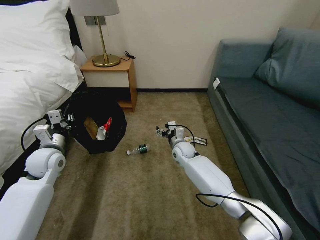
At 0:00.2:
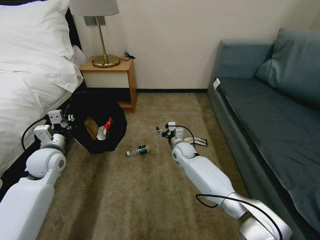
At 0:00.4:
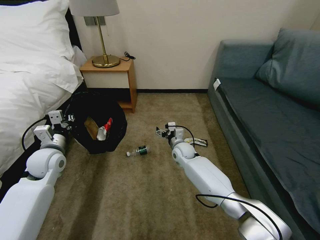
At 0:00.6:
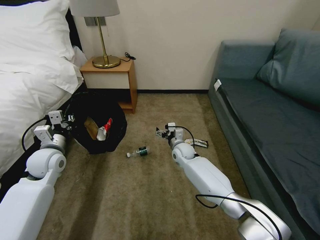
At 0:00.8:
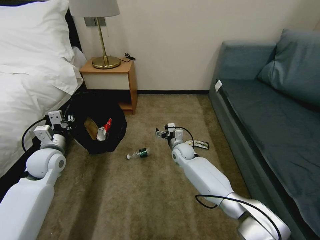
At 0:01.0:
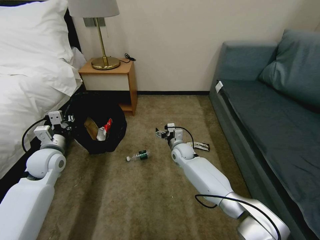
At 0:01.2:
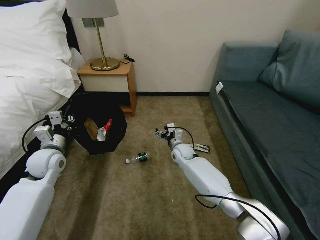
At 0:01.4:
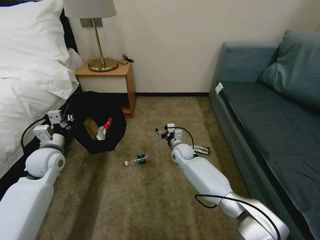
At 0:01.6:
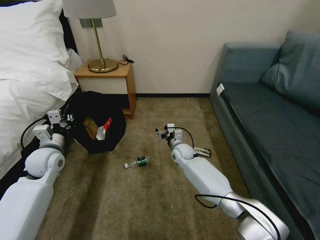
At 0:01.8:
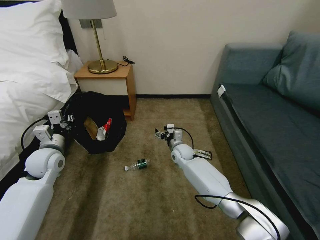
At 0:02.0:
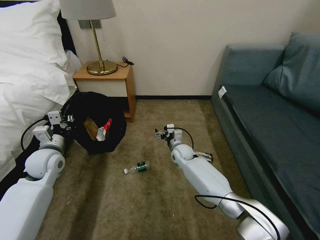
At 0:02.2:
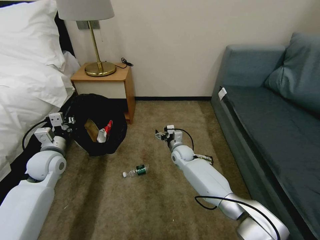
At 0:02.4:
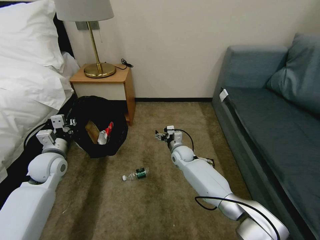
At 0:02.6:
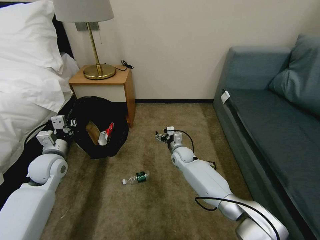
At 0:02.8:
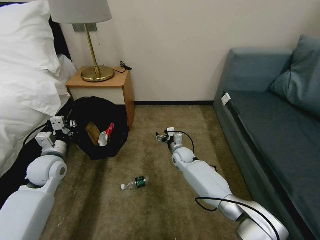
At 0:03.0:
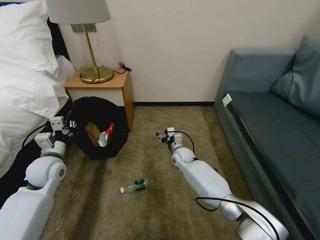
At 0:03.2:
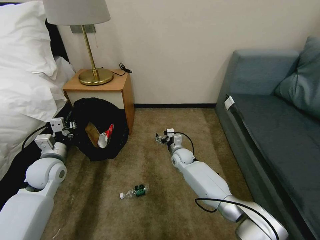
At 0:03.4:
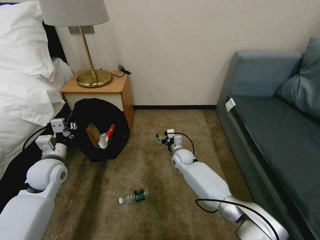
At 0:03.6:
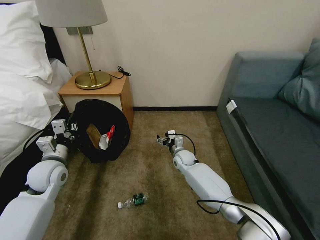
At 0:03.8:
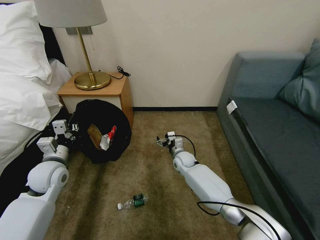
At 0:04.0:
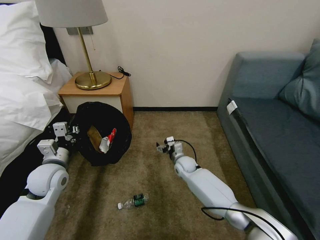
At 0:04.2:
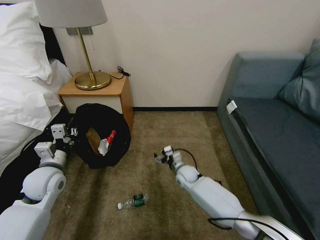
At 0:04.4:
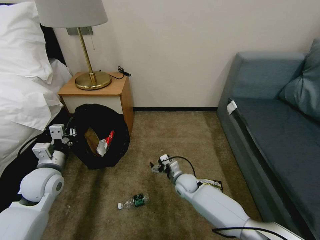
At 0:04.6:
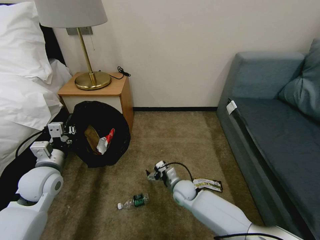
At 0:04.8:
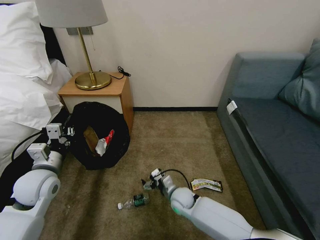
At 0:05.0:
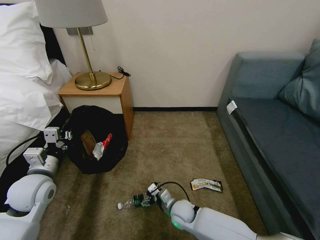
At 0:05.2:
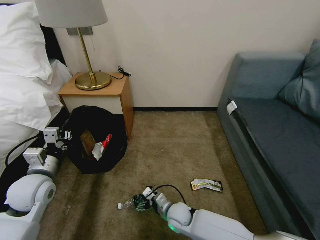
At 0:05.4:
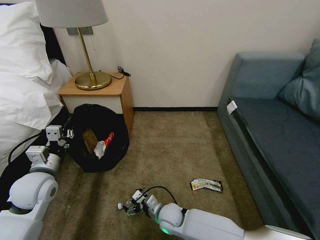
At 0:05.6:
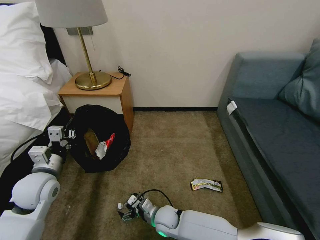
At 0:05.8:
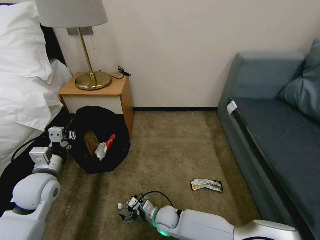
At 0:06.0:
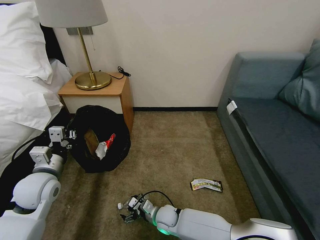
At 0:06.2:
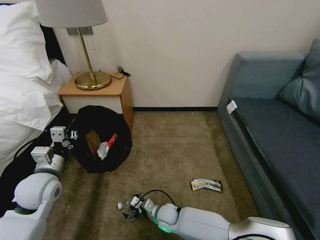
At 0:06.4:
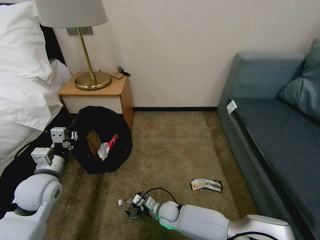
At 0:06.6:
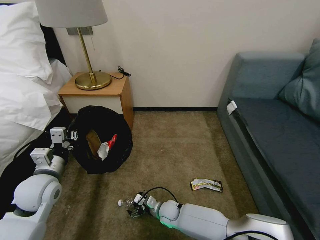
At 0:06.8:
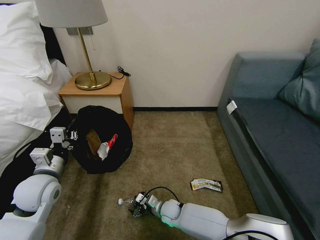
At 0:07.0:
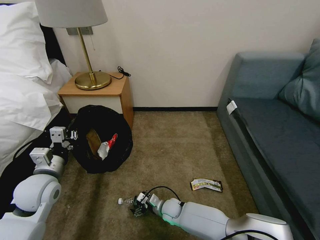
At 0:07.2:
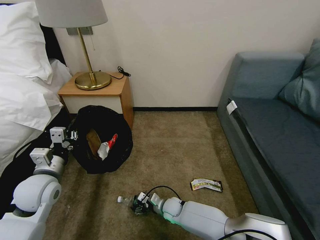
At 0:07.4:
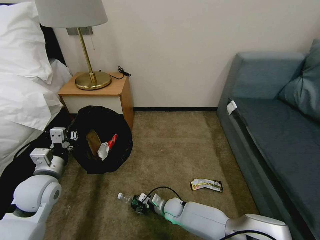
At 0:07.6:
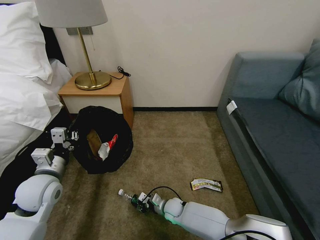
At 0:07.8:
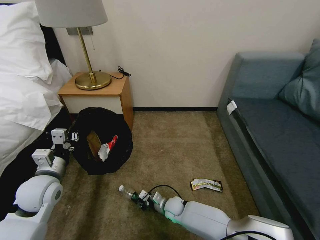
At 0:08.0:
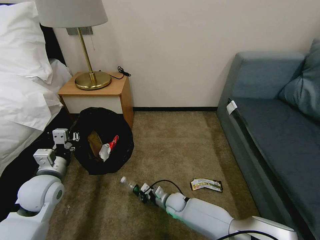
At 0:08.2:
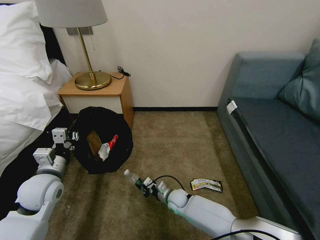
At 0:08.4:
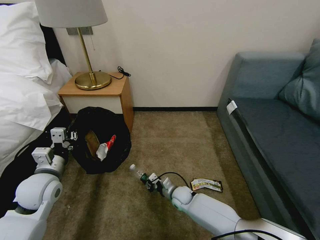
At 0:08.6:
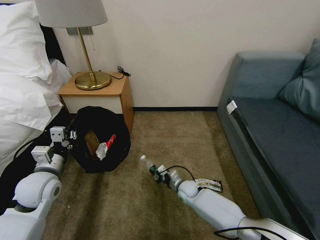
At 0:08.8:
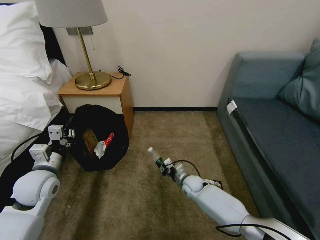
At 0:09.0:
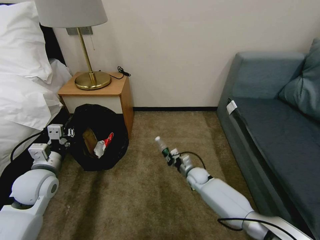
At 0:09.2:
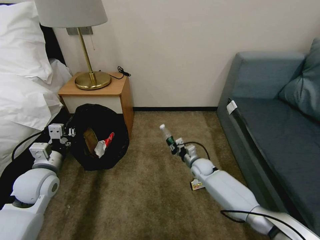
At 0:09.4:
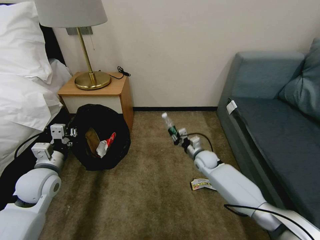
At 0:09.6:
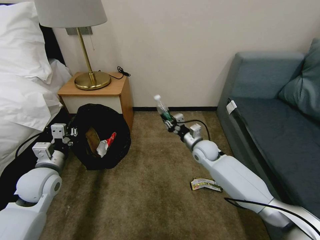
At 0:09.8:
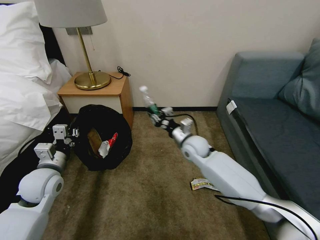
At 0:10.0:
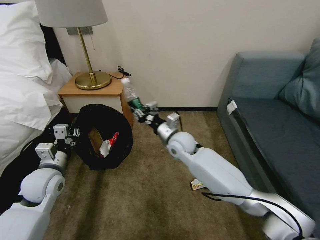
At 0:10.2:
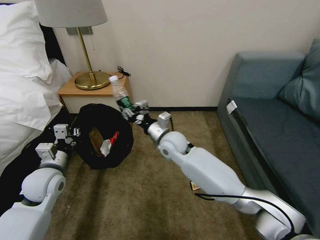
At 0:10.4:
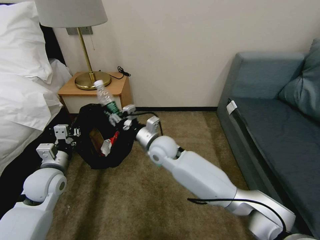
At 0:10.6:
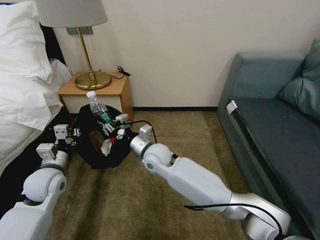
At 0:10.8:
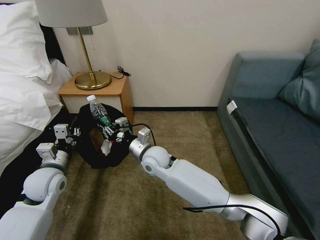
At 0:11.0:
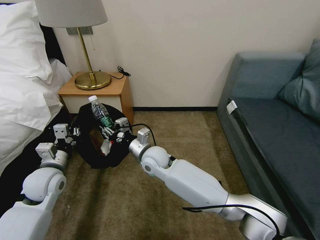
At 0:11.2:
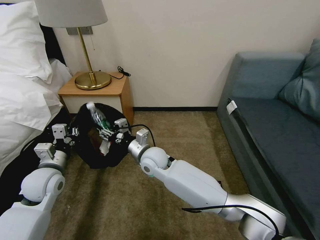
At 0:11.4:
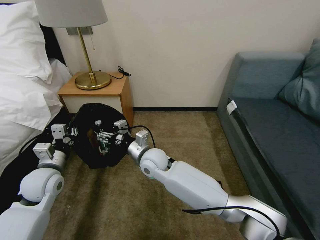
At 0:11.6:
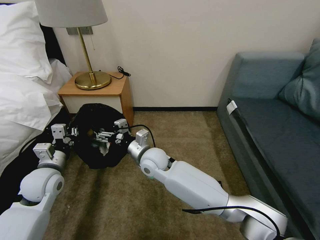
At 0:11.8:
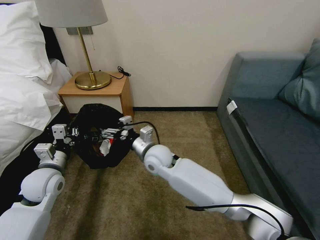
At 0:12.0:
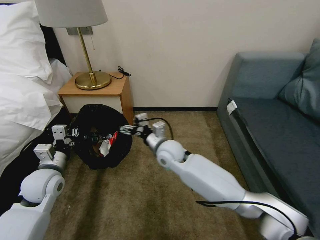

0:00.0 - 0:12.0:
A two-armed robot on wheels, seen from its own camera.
Task of the whole recording: Pick up the trash bin, then pick up the garbage on the floor and place it into the trash bin.
0:00.0 - 0:01.6: The two grippers keep their place.
0:03.0 - 0:04.4: The right gripper goes approximately 10 cm backward and downward.
0:04.4 - 0:06.0: The right gripper moves backward, to the left and downward, approximately 15 cm.
0:06.0 - 0:07.6: The right gripper shifts by approximately 5 cm, and closes up.
0:07.6 - 0:09.0: The right gripper heads forward, to the right and upward, covering roughly 20 cm.
0:09.0 - 0:10.4: The right gripper goes about 30 cm upward and to the left.
0:10.4 - 0:12.0: The right gripper opens up.

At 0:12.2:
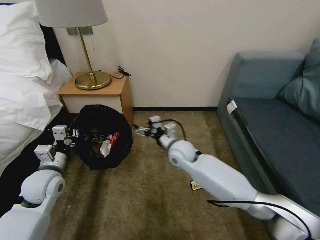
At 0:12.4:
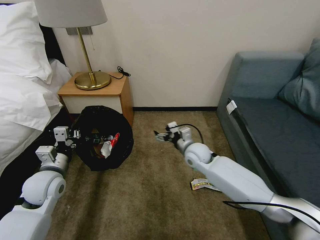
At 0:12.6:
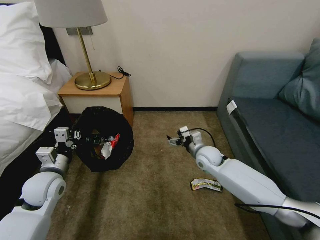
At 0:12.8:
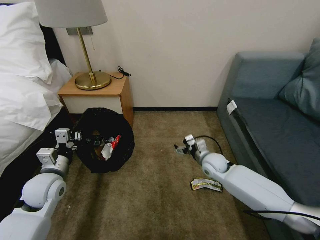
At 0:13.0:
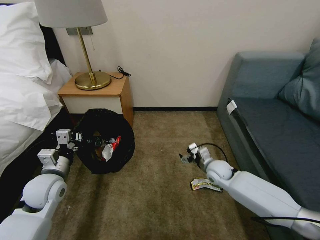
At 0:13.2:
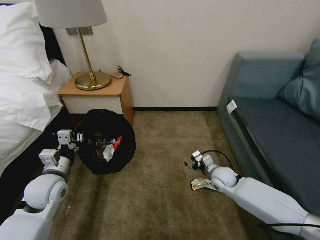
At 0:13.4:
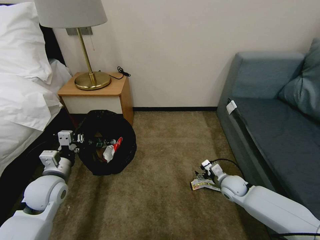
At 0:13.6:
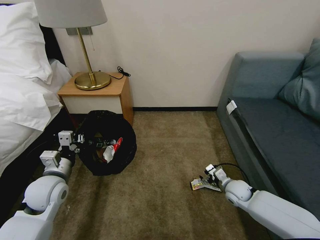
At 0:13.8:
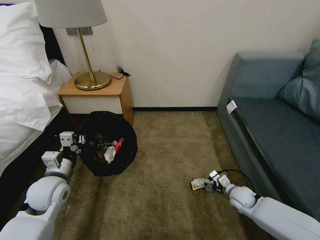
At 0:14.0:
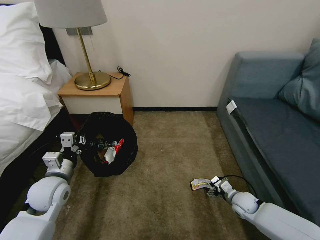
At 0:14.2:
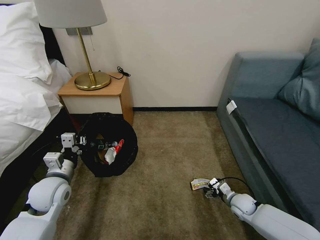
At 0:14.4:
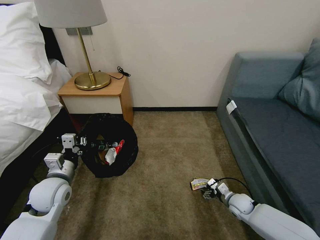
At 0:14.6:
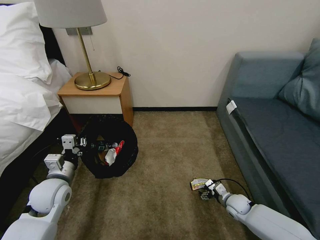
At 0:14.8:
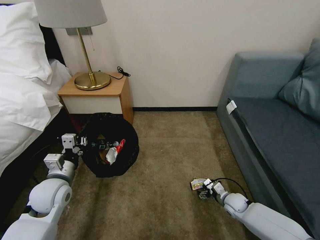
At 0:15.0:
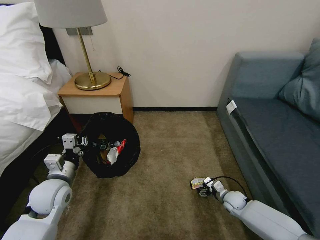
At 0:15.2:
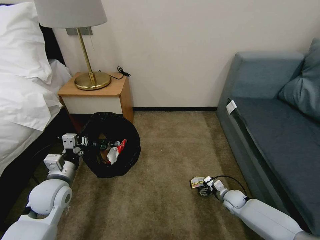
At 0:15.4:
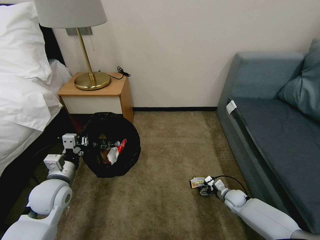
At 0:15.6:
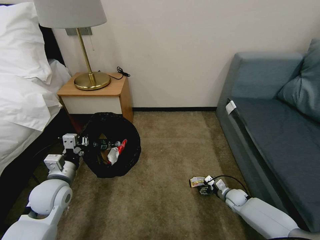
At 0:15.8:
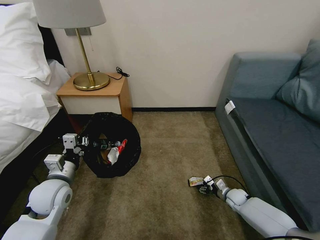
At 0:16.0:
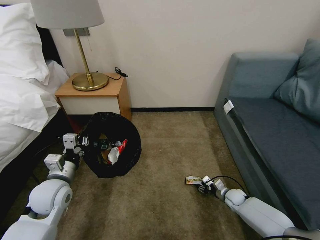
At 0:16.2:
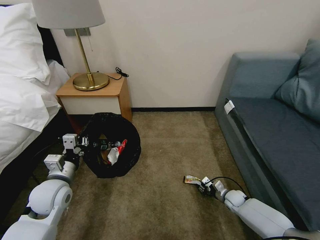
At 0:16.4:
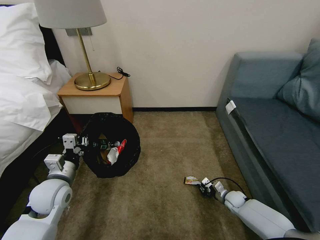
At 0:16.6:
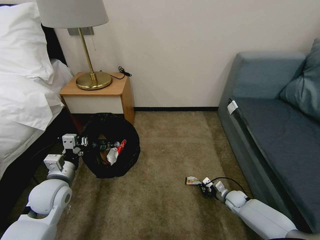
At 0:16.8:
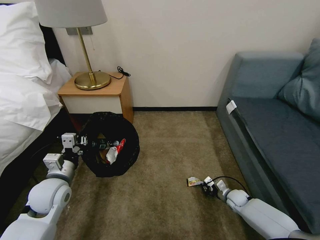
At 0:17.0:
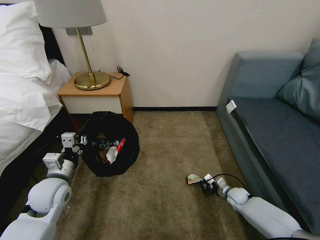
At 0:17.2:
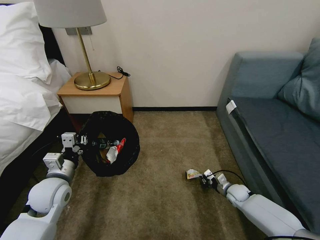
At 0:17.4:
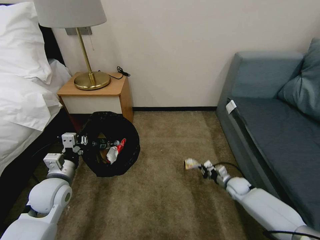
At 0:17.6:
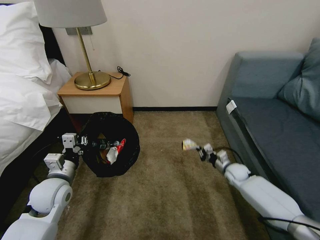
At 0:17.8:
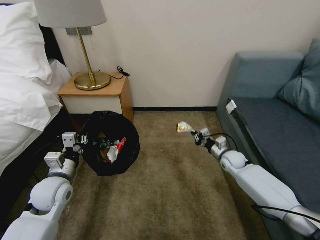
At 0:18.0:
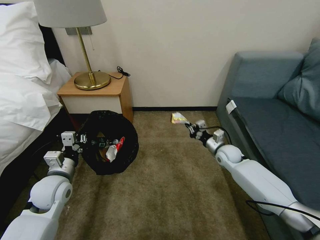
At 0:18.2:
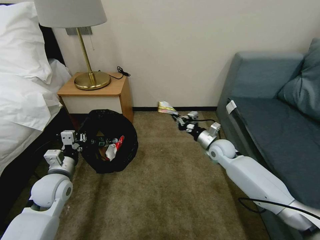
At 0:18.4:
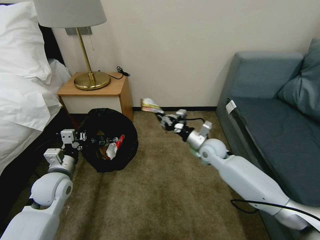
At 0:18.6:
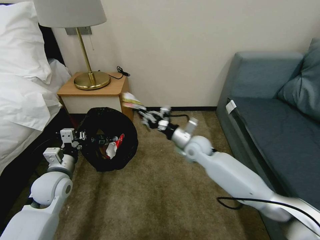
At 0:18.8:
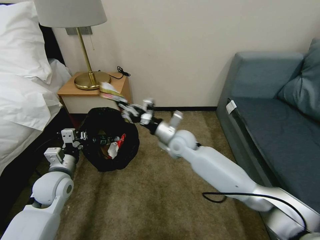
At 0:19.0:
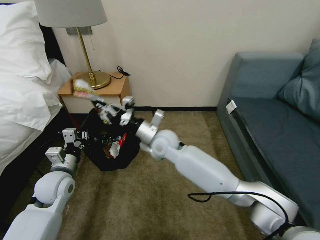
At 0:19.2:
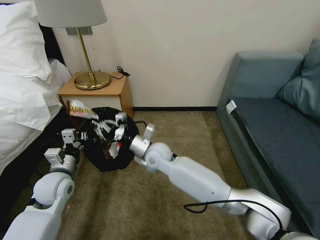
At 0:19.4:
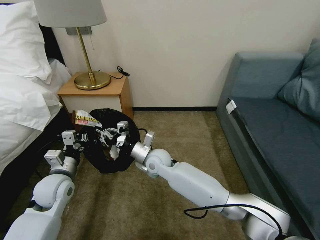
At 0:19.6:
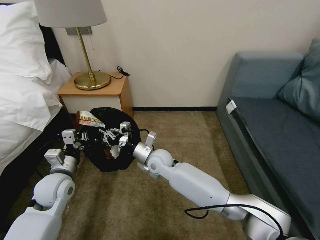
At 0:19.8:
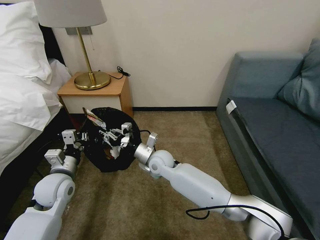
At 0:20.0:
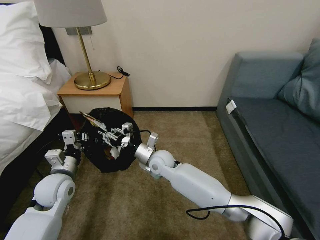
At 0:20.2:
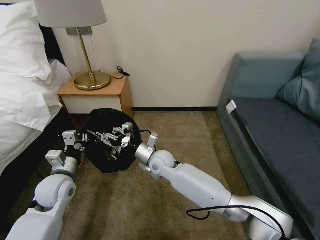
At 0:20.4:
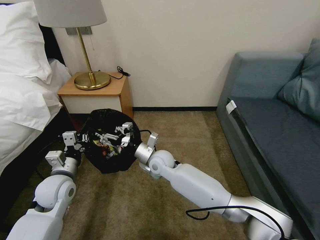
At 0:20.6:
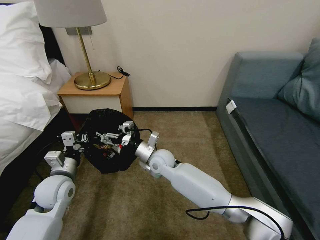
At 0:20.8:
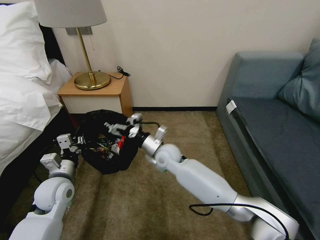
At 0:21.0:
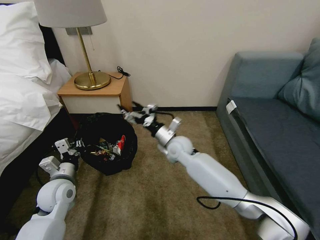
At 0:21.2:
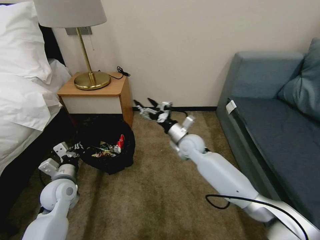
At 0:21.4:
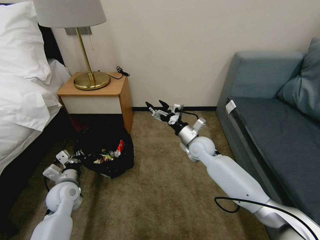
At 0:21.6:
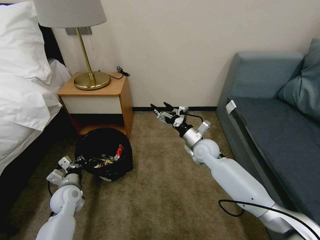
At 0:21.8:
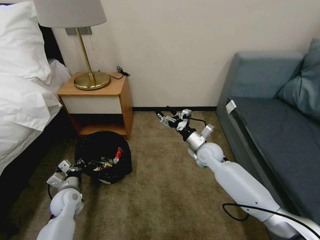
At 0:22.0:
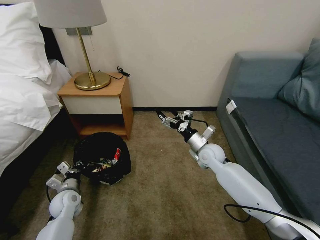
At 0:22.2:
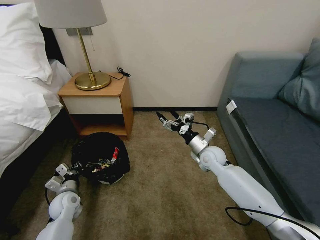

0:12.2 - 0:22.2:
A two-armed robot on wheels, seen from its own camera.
Task of the whole recording: Pick up the trash bin, then pick up the garbage on the floor and place it into the trash bin.
0:12.2 - 0:13.6: The right gripper heads to the right and downward, covering about 30 cm.
0:13.6 - 0:15.0: The right gripper is displaced downward by approximately 10 cm.
0:15.0 - 0:16.4: The right gripper closes up.
0:16.4 - 0:18.0: The right gripper shifts roughly 25 cm upward and forward.
0:18.0 - 0:19.4: The right gripper goes about 30 cm to the left.
0:19.4 - 0:20.8: The right gripper opens.
0:20.8 - 0:22.2: The right gripper moves to the right, about 20 cm, while the left gripper goes approximately 15 cm downward.
